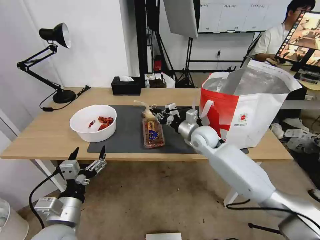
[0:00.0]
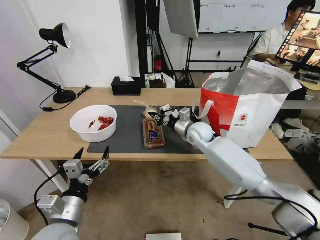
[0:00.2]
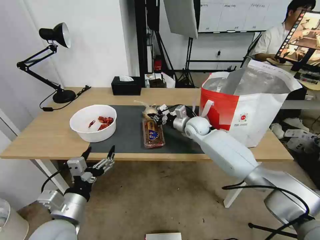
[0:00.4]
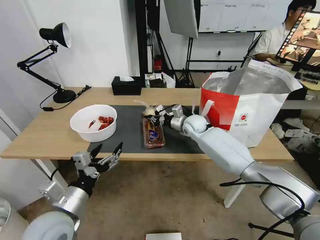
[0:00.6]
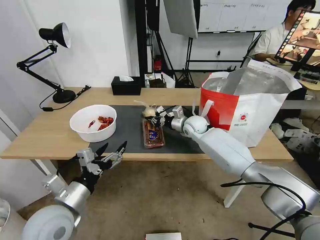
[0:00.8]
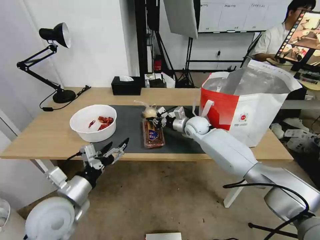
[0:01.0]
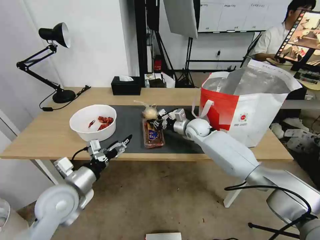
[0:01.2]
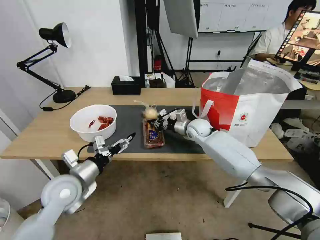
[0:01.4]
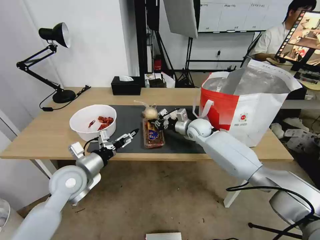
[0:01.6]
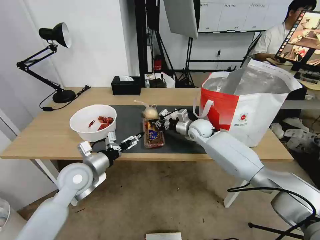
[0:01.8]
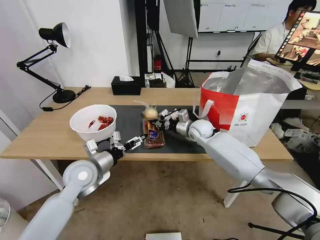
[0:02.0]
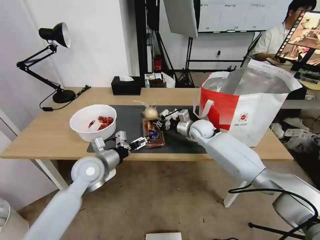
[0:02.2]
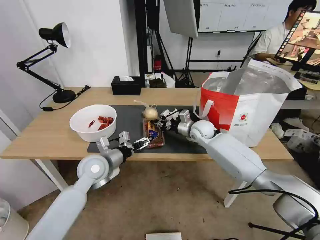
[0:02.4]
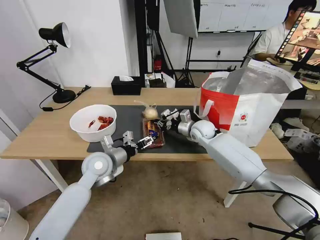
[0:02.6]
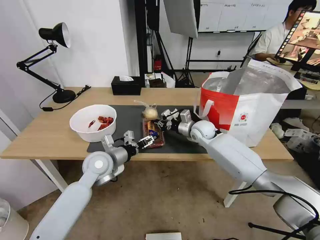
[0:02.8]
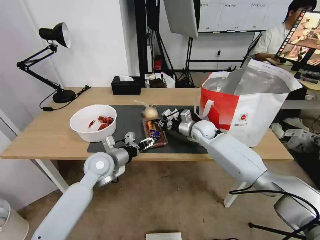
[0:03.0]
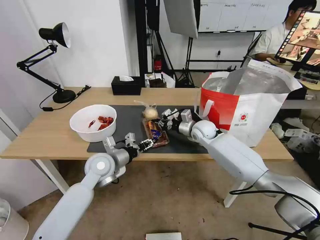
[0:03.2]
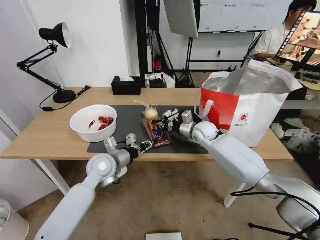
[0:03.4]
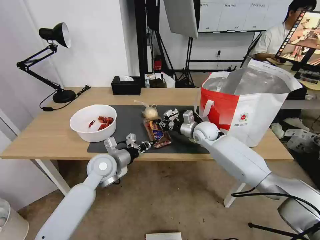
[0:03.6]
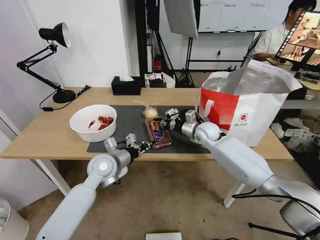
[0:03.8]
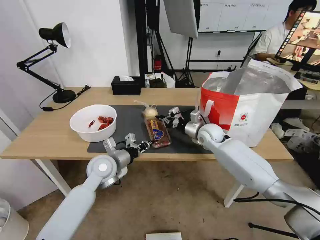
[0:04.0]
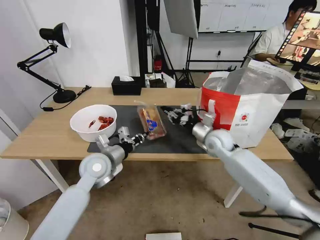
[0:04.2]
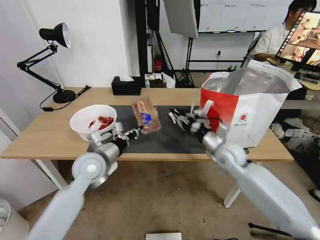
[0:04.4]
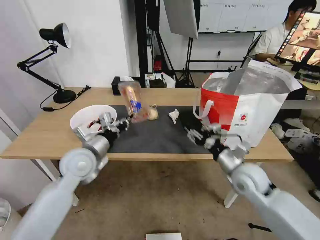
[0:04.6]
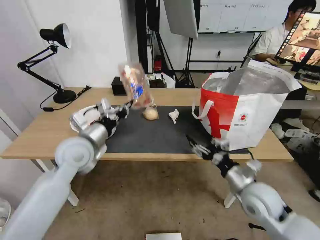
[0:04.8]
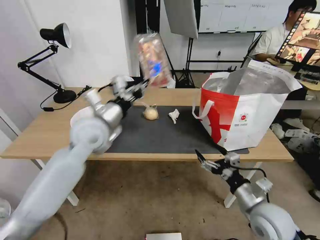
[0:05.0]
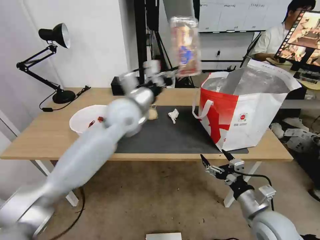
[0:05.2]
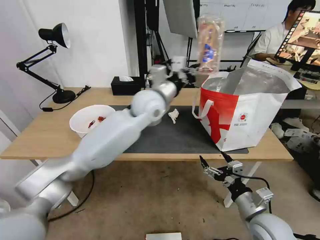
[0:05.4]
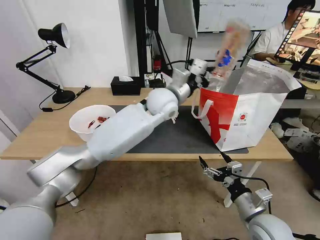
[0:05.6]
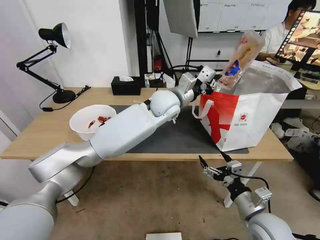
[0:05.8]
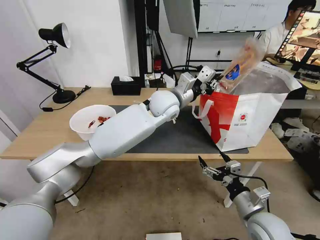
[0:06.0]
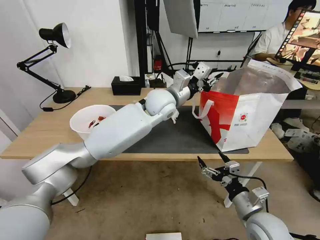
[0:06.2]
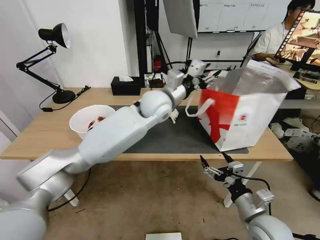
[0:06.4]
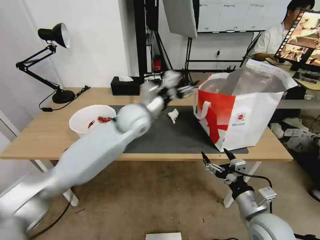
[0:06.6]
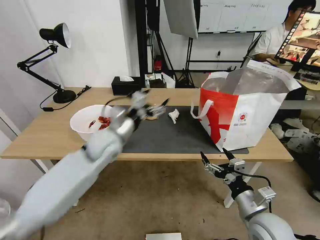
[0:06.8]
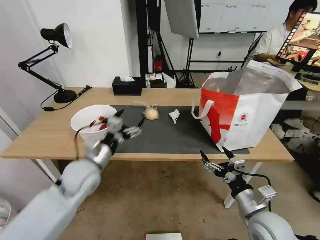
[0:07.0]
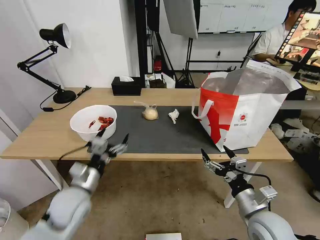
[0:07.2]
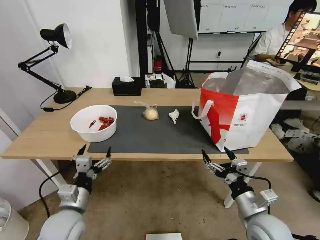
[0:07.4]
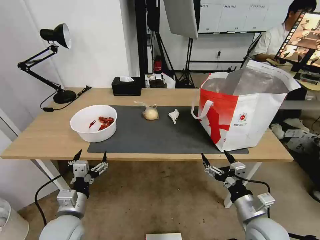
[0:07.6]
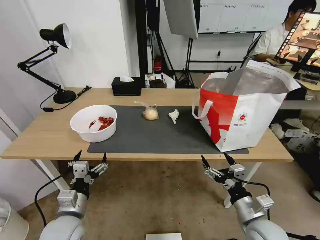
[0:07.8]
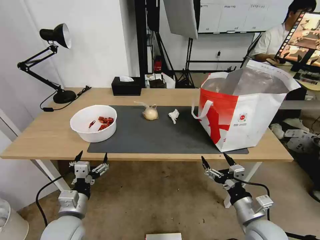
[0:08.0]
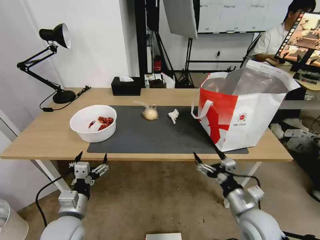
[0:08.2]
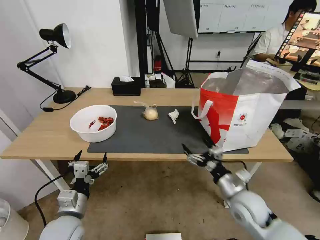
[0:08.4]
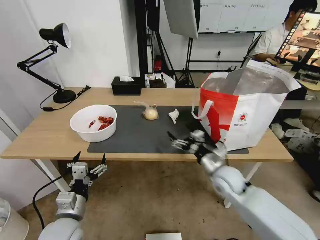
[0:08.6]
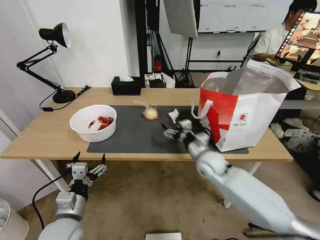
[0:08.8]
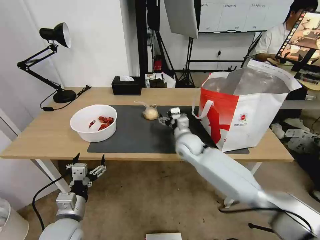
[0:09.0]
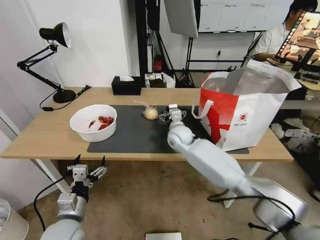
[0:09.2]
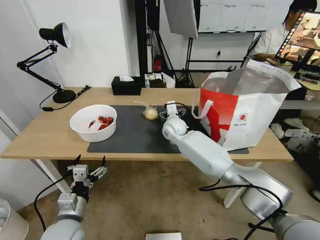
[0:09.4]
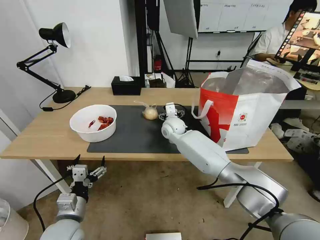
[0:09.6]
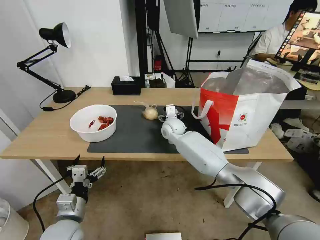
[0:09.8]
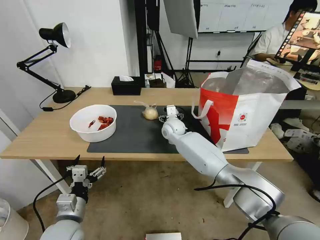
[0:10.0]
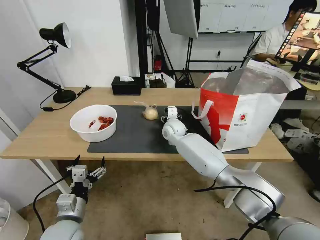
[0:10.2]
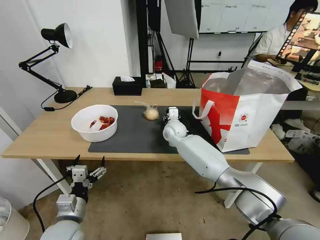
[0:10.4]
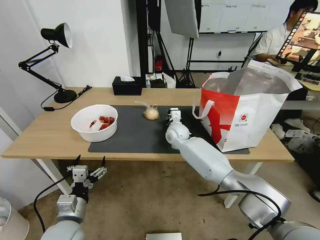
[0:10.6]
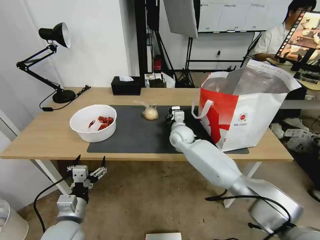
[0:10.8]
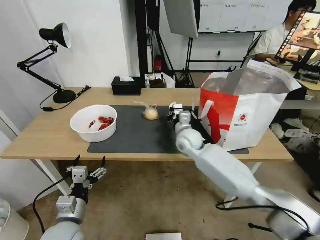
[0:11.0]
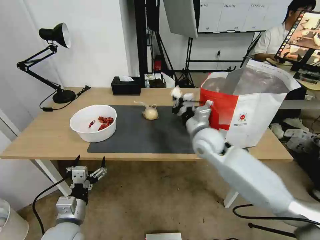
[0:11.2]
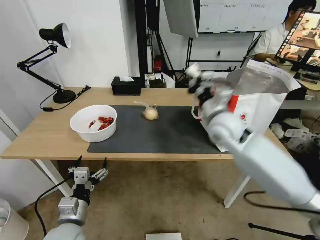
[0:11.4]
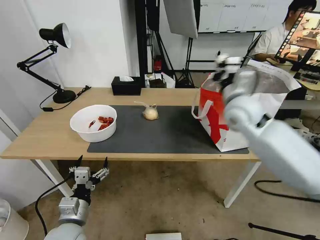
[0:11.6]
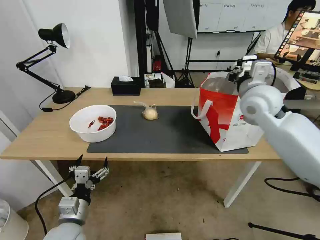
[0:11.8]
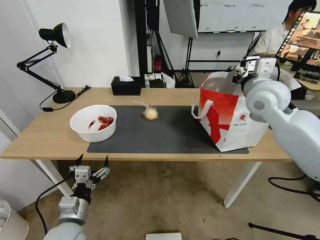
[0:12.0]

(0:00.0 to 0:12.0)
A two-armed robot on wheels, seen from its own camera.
Task of the whole recording: Pick up the trash from the table and place it into the takeout bag.
0:00.0 - 0:01.6: The right gripper shifts approximately 10 cm forward, while the left gripper is displaced forward by approximately 15 cm.
0:01.6 - 0:03.0: The left gripper moves to the right and forward, roughly 10 cm.
0:03.0 - 0:04.4: The right gripper moves backward and to the right, some 15 cm. The left gripper closes up.
0:04.4 - 0:06.0: The right gripper is displaced backward by about 20 cm, and opens up; the left gripper is displaced to the right, forward and upward by approximately 30 cm.
0:06.0 - 0:07.6: The left gripper travels backward, to the left and downward by about 50 cm, and opens its fingers.
0:07.6 - 0:09.0: The right gripper goes some 30 cm forward and to the left.
0:09.0 - 0:10.4: The right gripper moves forward, about 10 cm, and closes.
0:10.4 - 0:12.0: The right gripper is displaced upward, to the right and backward by some 35 cm, and closes.

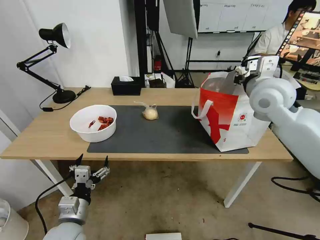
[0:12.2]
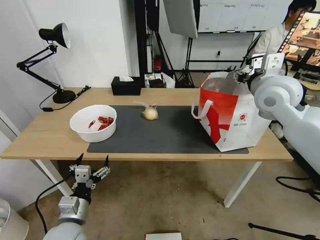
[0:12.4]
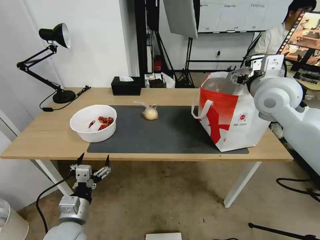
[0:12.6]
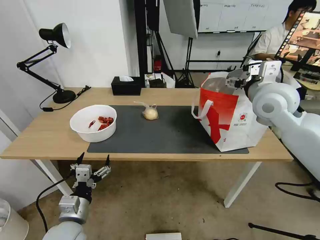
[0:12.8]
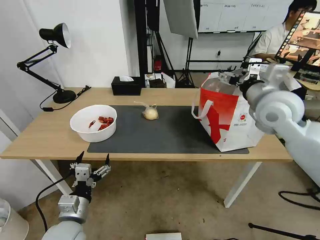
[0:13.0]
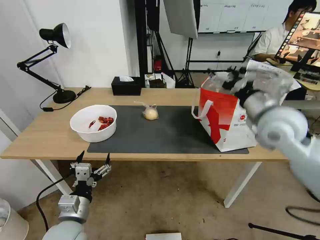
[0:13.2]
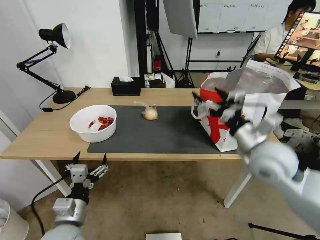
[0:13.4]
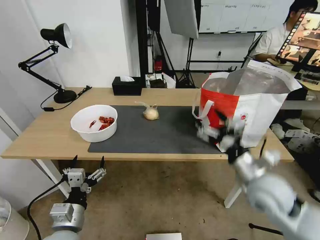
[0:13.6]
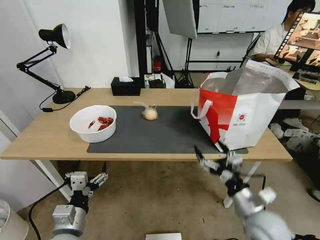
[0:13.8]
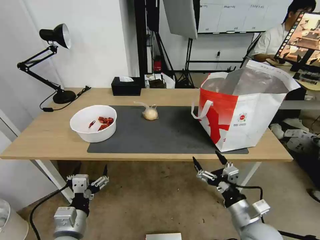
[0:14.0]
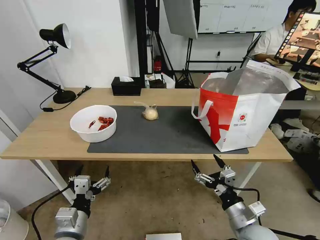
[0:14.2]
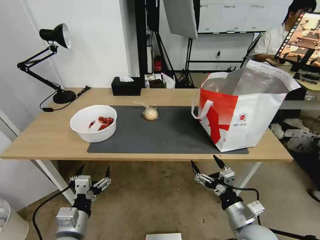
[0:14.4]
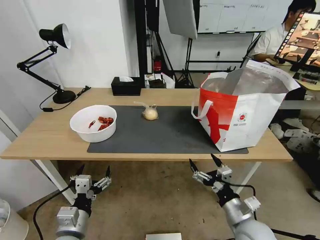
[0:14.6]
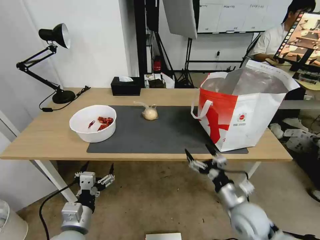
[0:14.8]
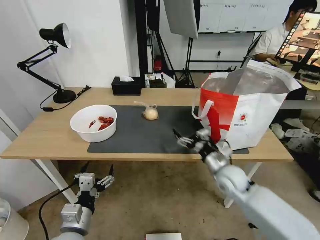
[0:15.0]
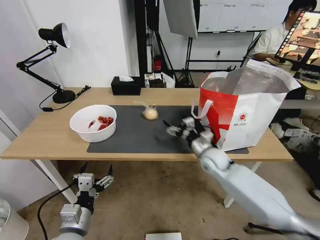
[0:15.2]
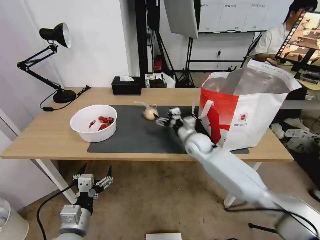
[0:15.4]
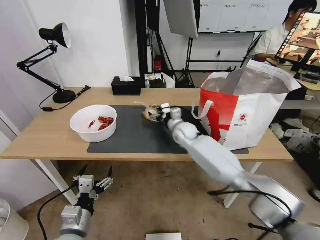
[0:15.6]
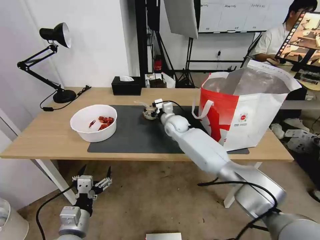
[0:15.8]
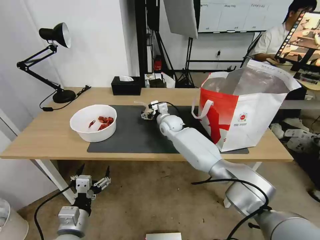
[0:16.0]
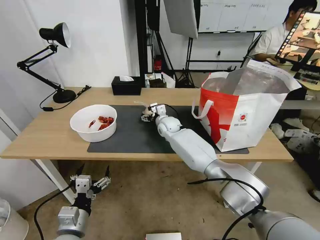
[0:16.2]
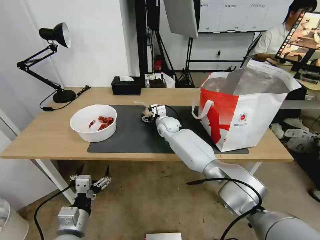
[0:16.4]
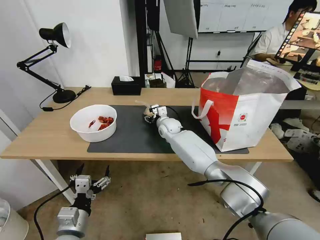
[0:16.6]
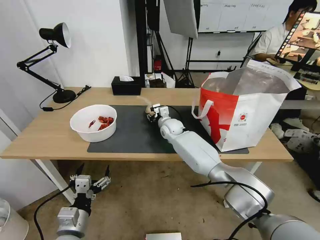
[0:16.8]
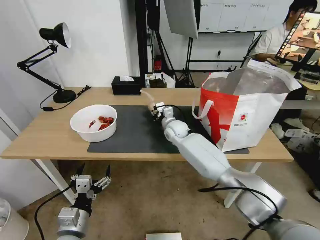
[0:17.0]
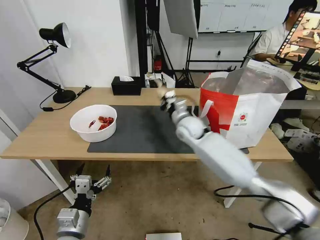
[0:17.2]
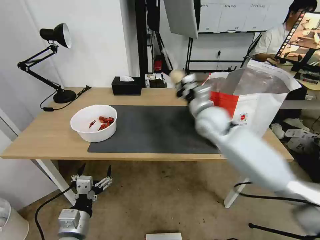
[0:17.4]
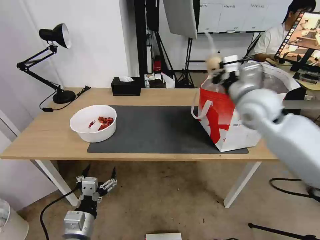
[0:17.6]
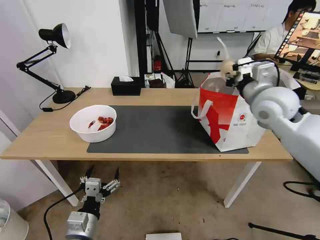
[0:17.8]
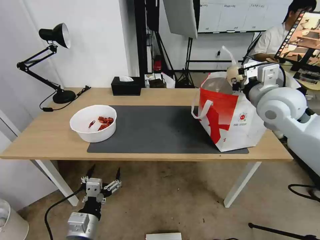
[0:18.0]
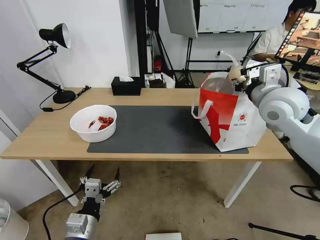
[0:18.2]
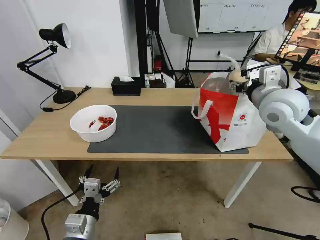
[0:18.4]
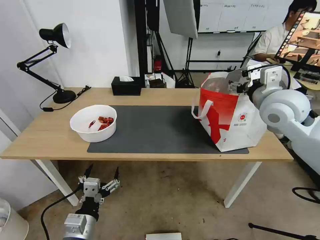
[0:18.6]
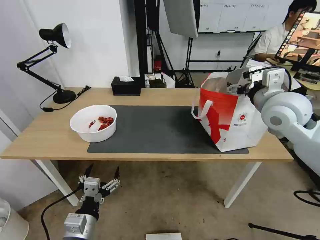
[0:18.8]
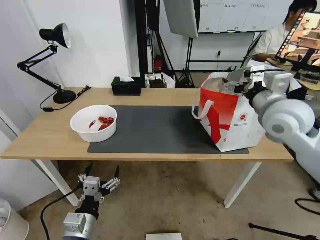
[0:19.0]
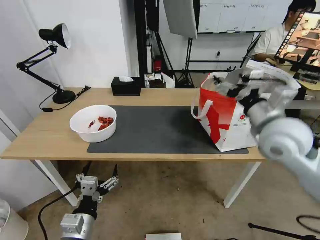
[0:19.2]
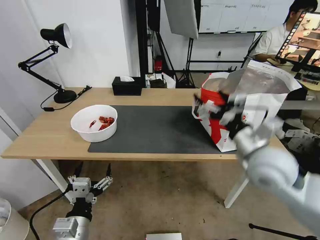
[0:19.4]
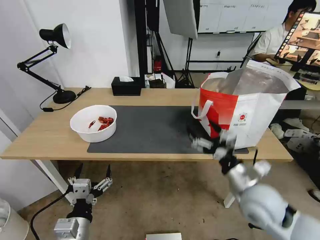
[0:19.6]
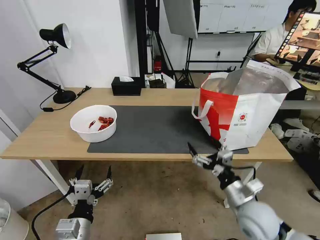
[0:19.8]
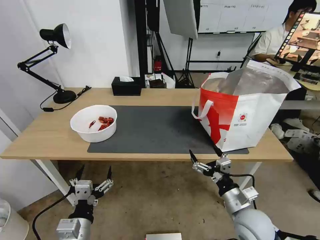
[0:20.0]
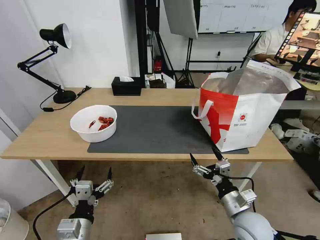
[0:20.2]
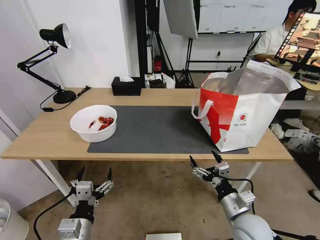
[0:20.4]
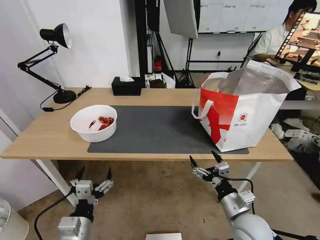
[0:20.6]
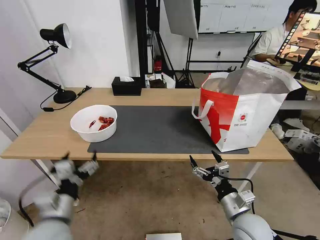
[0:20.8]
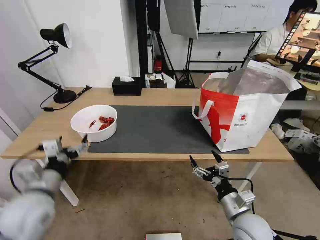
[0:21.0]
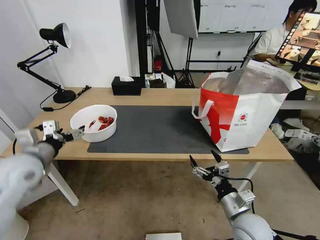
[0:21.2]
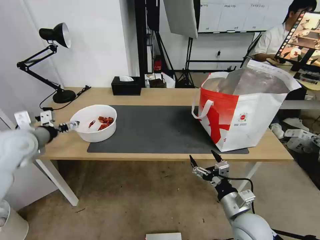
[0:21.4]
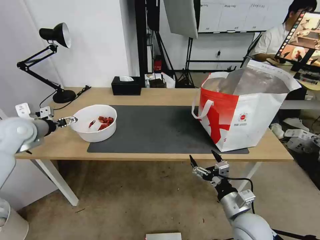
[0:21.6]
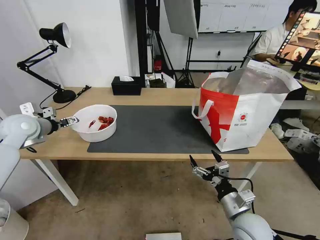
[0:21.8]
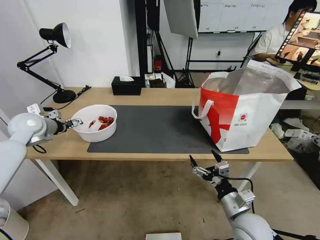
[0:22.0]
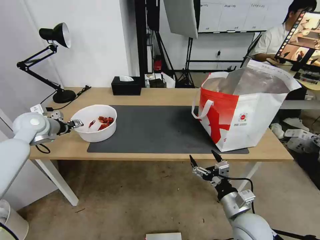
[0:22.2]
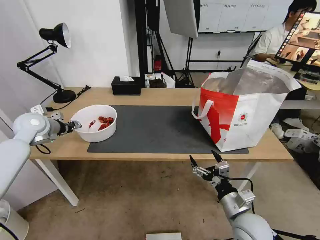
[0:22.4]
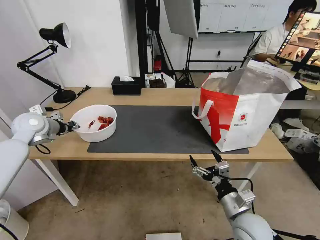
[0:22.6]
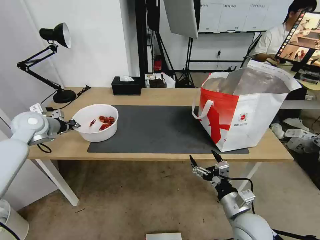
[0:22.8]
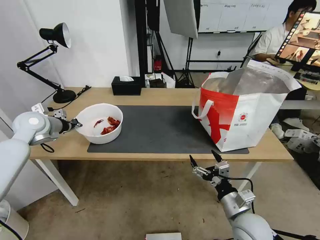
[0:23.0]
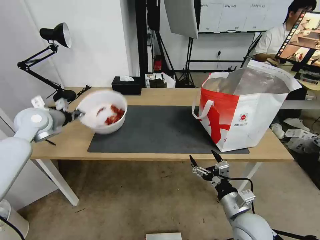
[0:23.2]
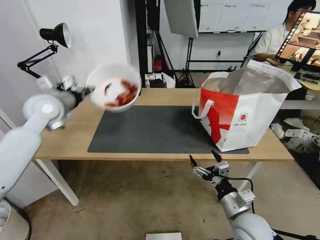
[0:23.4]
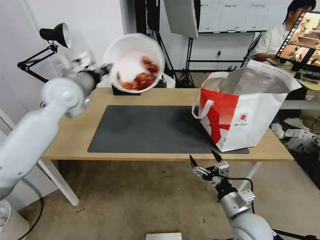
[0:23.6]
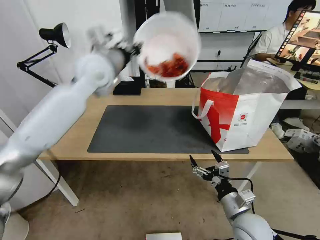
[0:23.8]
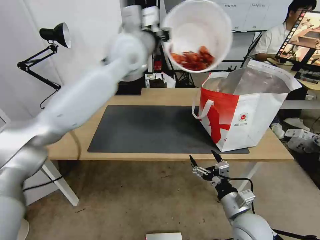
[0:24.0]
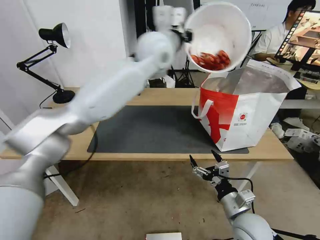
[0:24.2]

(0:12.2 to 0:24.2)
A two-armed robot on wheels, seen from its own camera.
Task of the whole recording: Pick up the trash from the table and place it into the takeout bag.
0:12.2 - 0:13.8: The right gripper heads downward and backward, covering some 35 cm, and opens.
0:13.8 - 0:15.2: The right gripper travels forward by approximately 20 cm.
0:15.2 - 0:16.6: The right gripper goes some 25 cm forward and to the left.
0:16.6 - 0:18.2: The right gripper shifts some 40 cm to the right, upward and backward, and closes, then opens again.
0:18.2 - 0:19.8: The right gripper travels downward and backward by about 30 cm, and opens.
0:19.8 - 0:21.2: The left gripper goes approximately 25 cm forward, to the left and upward.
0:21.2 - 0:22.6: The left gripper moves forward and to the left, roughly 15 cm, and closes its fingers.
0:22.6 - 0:24.2: The left gripper goes some 50 cm to the right and upward.
